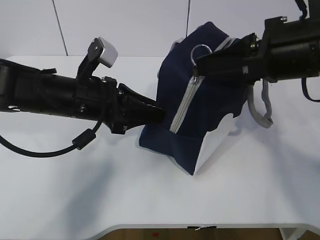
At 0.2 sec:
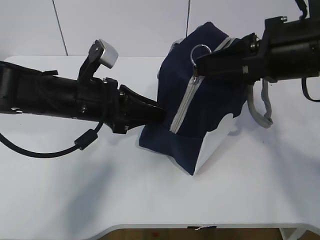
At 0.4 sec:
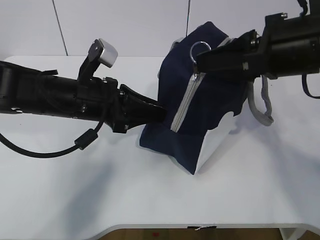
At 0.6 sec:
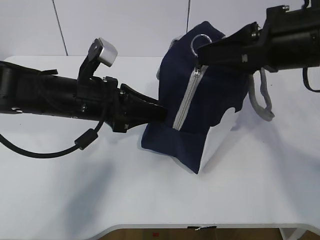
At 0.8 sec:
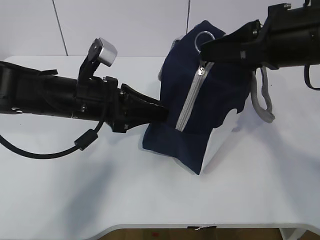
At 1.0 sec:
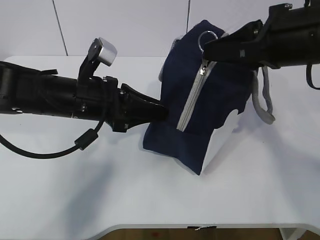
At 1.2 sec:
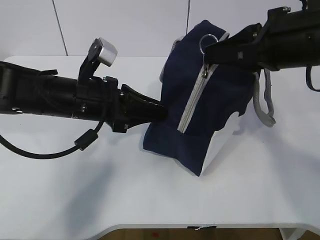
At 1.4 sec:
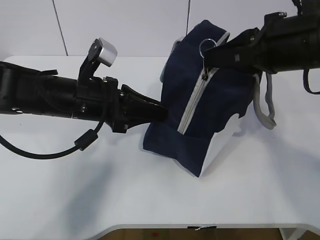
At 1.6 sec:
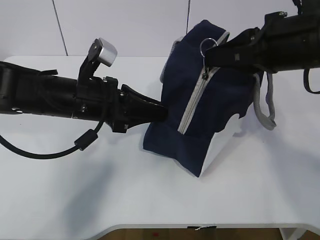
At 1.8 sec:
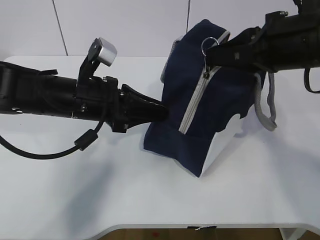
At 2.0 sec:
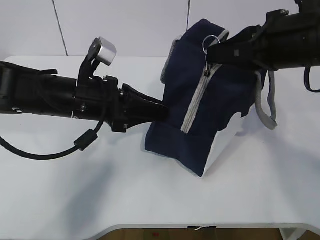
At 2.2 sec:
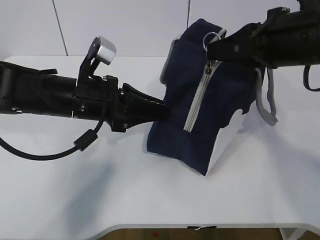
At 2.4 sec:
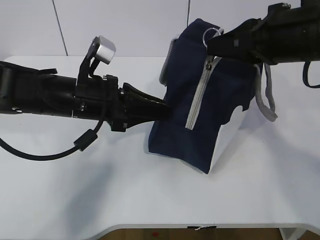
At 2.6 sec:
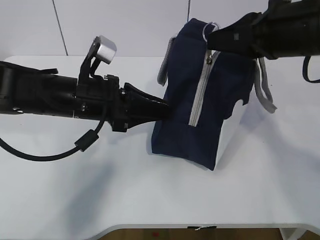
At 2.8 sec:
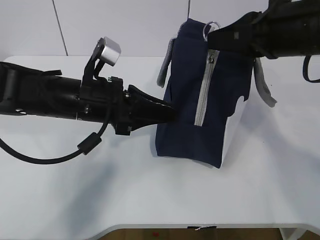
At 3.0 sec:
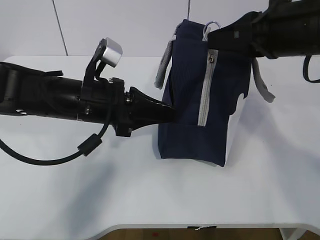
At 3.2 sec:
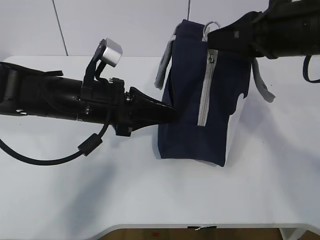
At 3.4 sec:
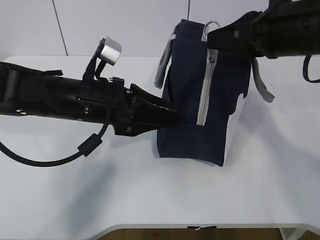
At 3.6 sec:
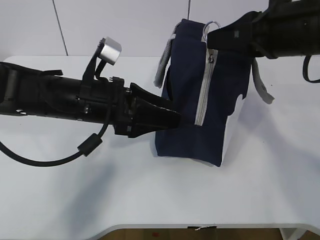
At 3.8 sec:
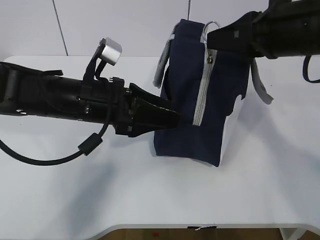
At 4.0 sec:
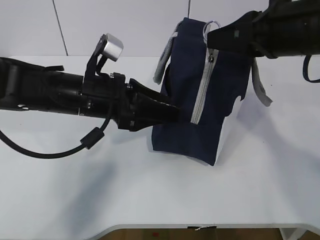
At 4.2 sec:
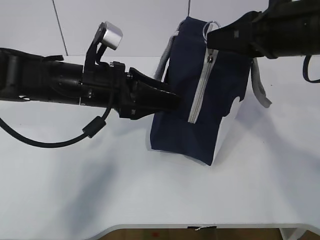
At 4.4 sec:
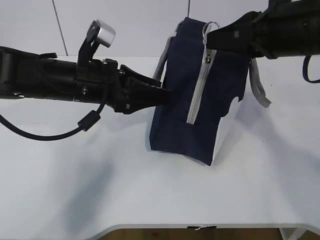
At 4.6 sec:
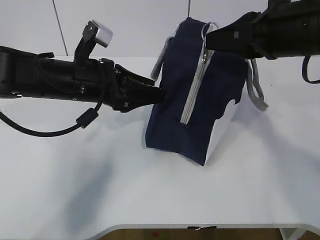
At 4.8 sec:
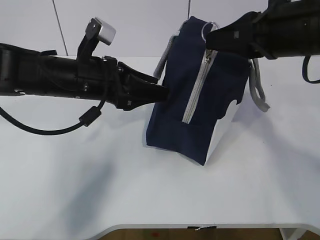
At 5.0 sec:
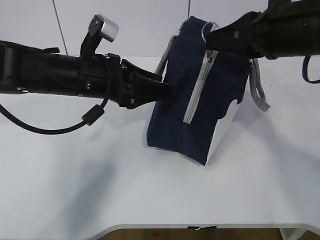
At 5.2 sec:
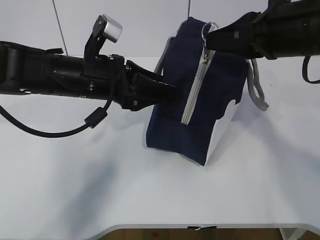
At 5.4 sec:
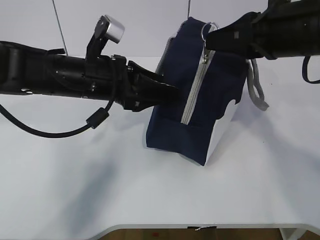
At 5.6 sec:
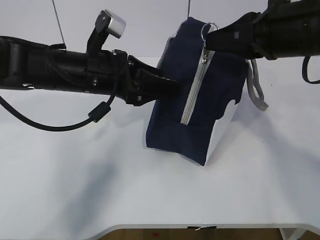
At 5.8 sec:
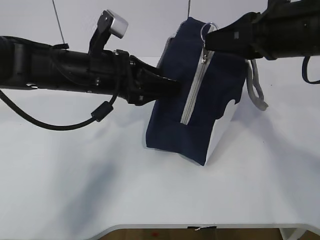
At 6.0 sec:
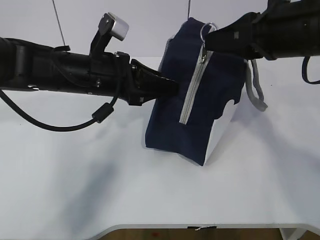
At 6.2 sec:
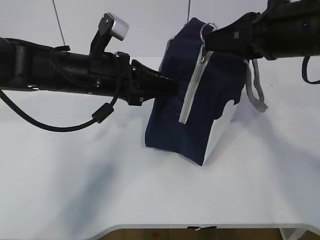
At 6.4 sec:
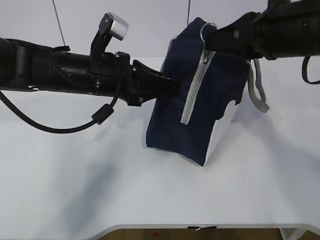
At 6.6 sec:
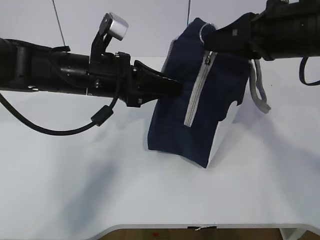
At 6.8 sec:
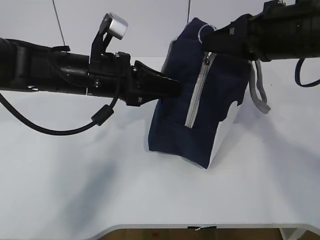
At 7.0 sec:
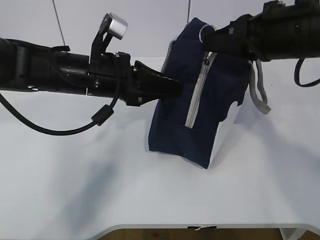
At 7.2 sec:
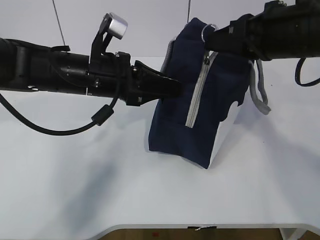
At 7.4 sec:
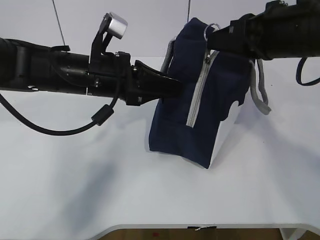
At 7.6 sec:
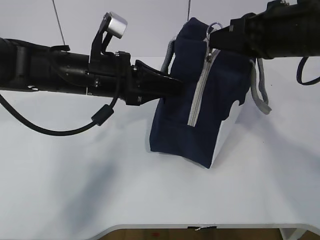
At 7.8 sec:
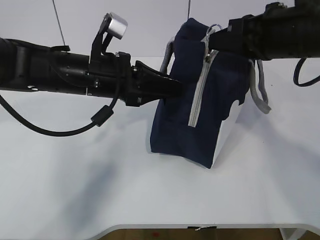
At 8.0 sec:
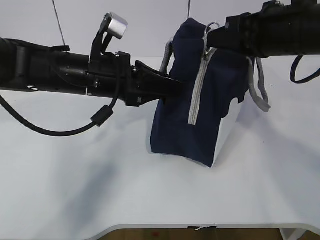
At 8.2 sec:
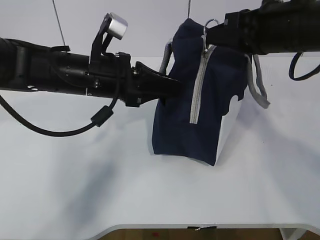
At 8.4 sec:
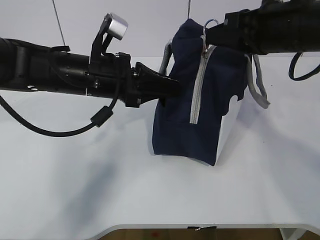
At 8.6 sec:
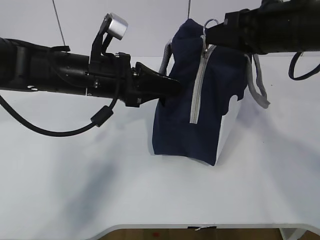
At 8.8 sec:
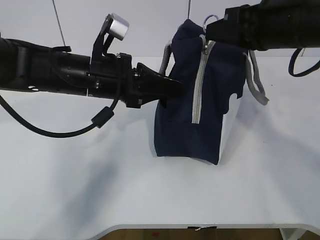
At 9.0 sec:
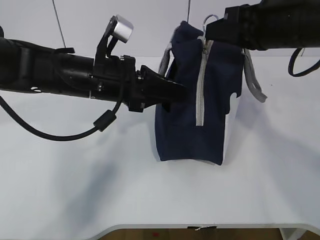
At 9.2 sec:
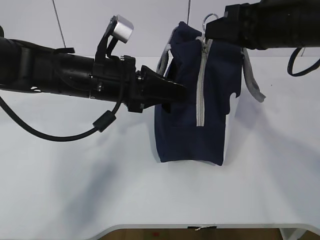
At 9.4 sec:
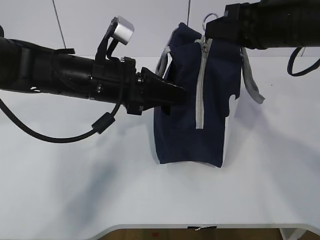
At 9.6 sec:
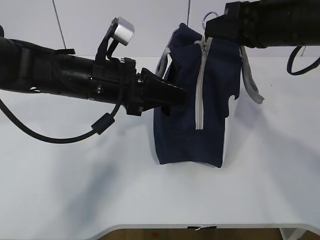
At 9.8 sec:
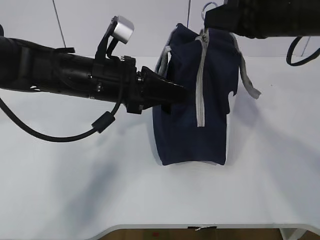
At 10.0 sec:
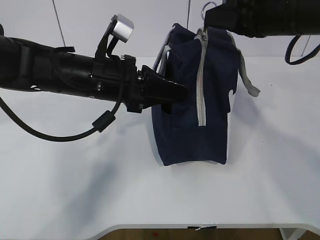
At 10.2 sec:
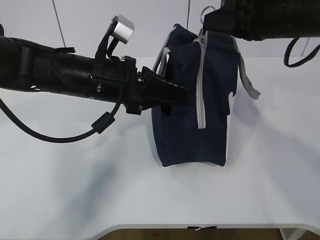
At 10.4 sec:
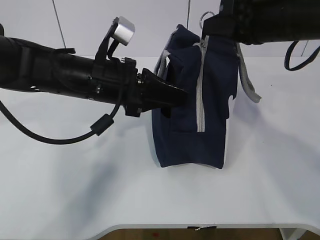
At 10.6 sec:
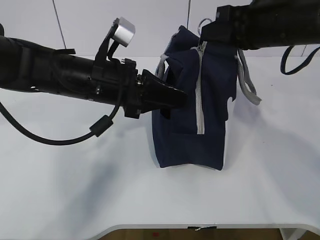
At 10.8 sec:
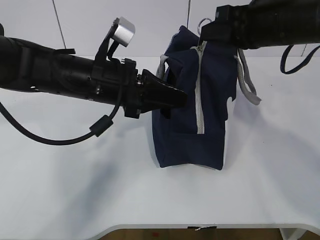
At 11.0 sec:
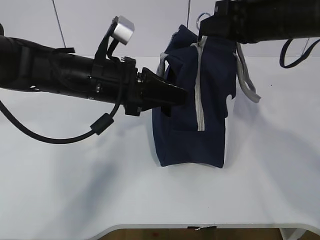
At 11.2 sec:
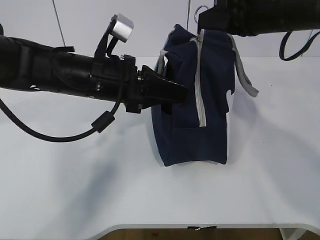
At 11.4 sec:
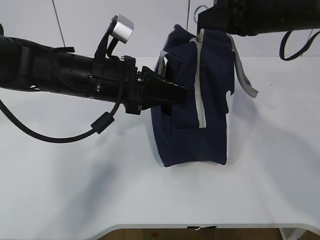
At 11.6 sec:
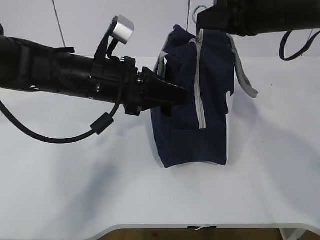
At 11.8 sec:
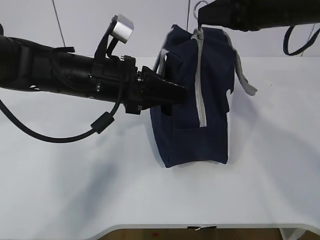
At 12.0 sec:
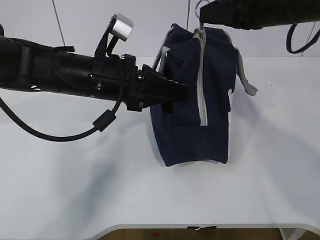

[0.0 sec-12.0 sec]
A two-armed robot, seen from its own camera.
Step, 0.0 sec to 9.2 sec: Grab the lunch bag with your left hand.
0.0 sec to 3.0 sec: The grippers stay close to where they were, moving slightly.
3.0 sec to 4.4 sec: The left gripper opens its fingers.
4.4 sec to 7.6 sec: There are only small adjustments of the grippers.
7.6 sec to 9.0 sec: Neither gripper changes place.
9.0 sec to 12.0 sec: There are only small adjustments of the grippers.

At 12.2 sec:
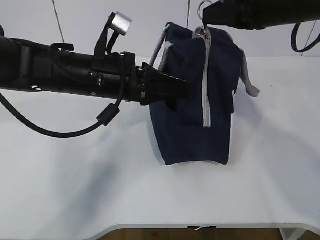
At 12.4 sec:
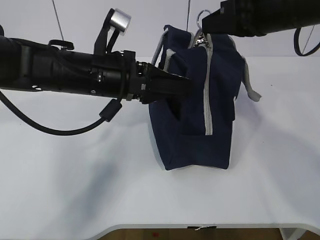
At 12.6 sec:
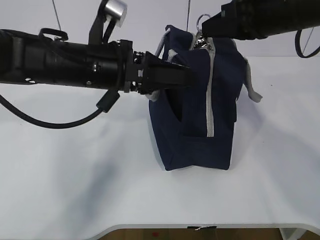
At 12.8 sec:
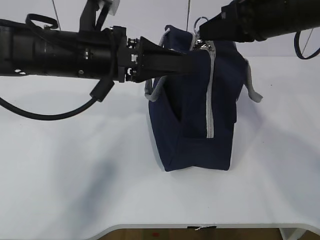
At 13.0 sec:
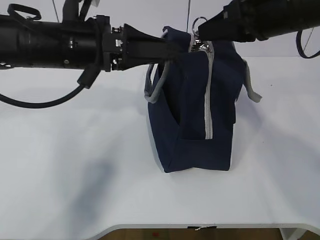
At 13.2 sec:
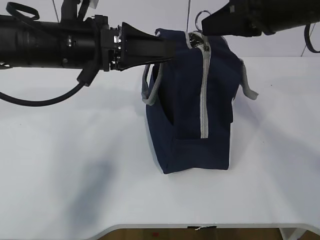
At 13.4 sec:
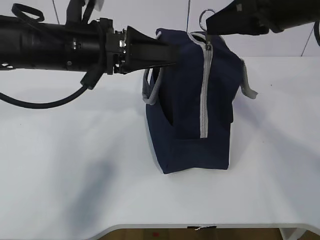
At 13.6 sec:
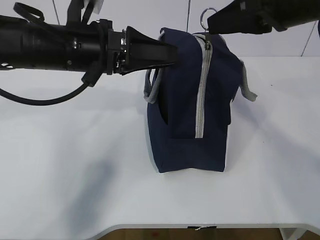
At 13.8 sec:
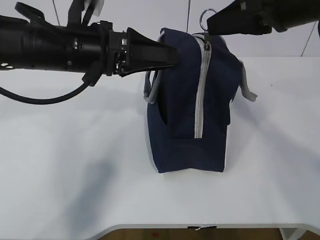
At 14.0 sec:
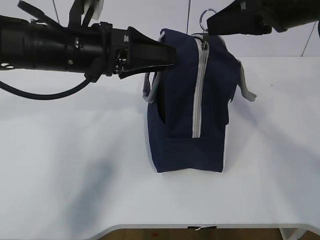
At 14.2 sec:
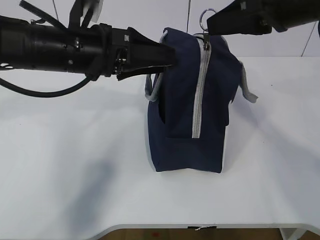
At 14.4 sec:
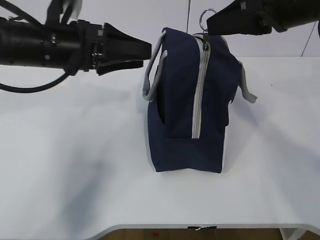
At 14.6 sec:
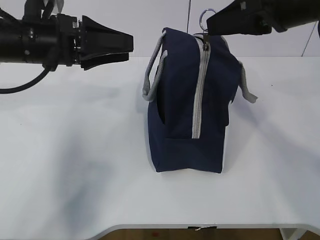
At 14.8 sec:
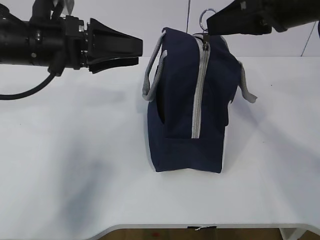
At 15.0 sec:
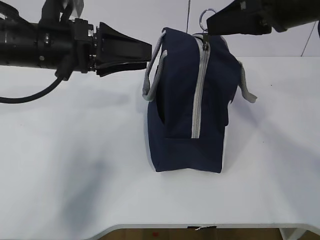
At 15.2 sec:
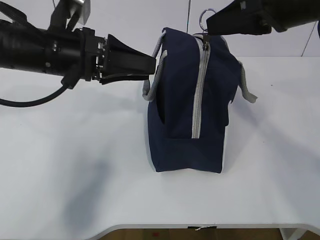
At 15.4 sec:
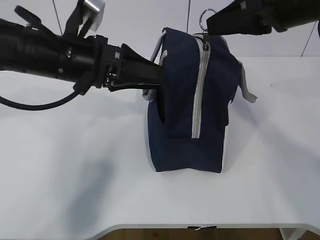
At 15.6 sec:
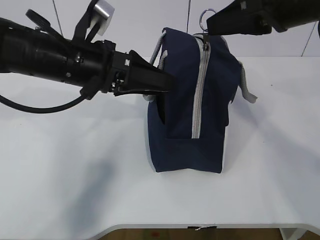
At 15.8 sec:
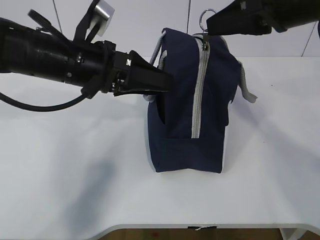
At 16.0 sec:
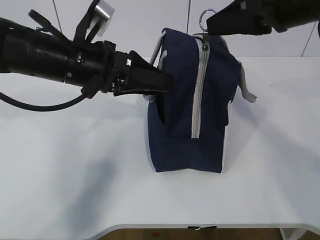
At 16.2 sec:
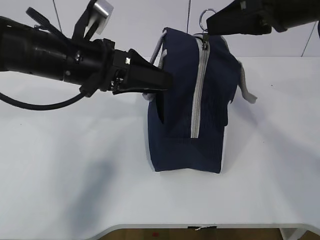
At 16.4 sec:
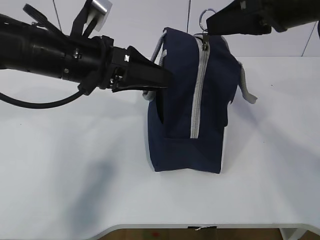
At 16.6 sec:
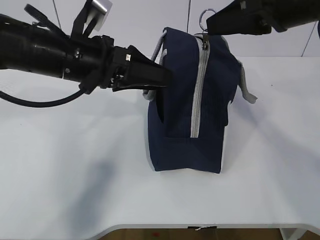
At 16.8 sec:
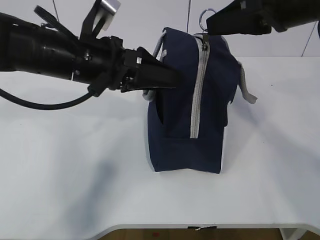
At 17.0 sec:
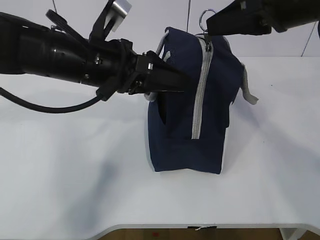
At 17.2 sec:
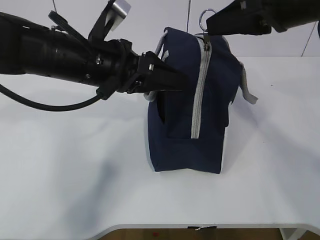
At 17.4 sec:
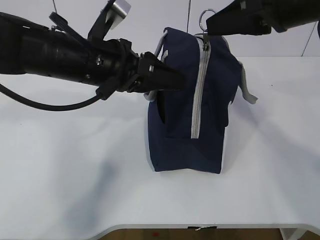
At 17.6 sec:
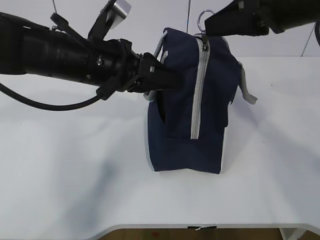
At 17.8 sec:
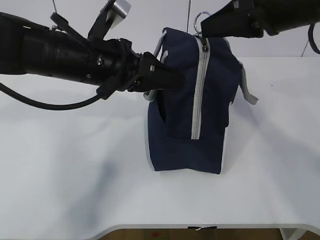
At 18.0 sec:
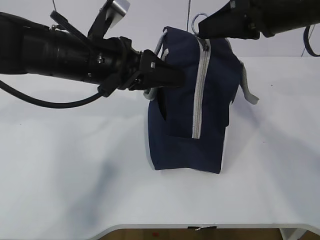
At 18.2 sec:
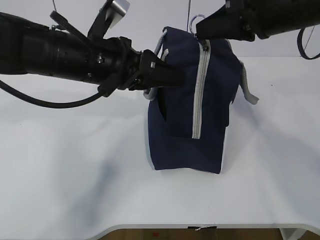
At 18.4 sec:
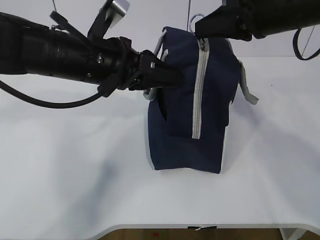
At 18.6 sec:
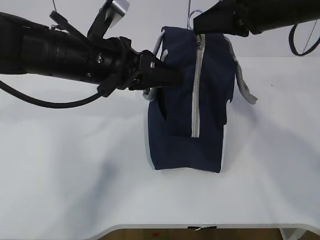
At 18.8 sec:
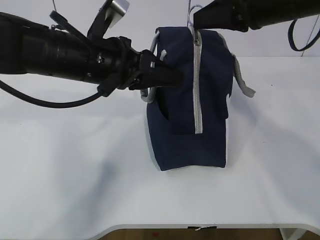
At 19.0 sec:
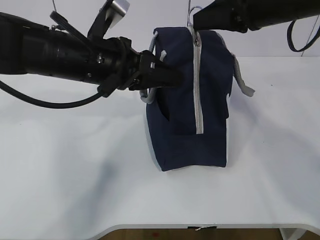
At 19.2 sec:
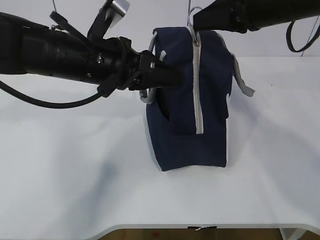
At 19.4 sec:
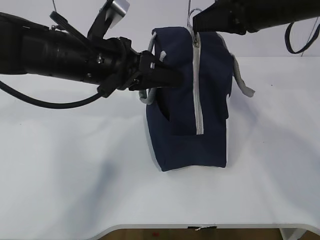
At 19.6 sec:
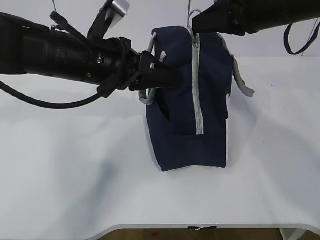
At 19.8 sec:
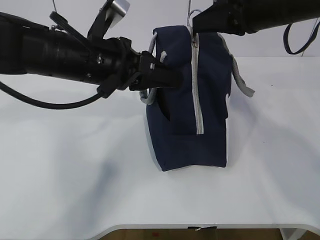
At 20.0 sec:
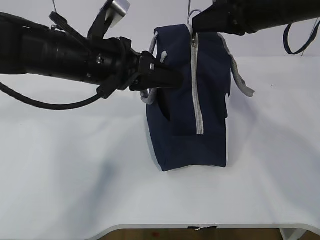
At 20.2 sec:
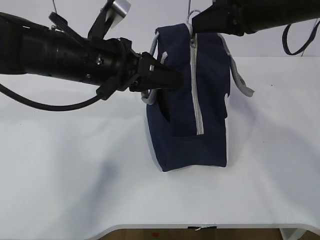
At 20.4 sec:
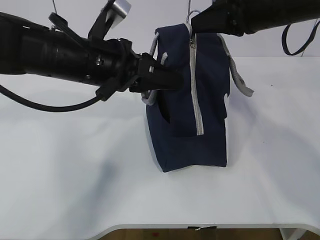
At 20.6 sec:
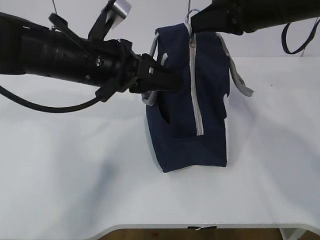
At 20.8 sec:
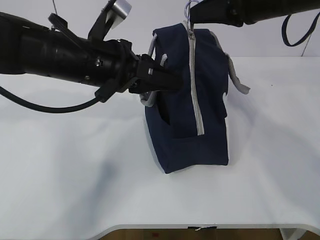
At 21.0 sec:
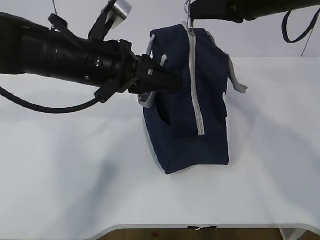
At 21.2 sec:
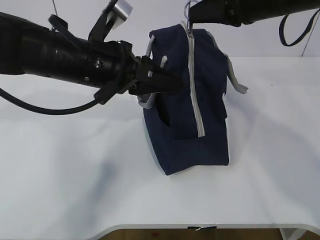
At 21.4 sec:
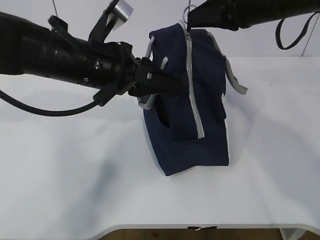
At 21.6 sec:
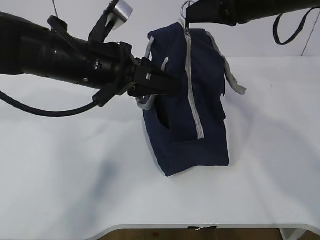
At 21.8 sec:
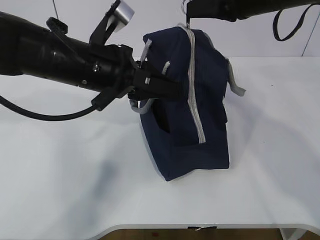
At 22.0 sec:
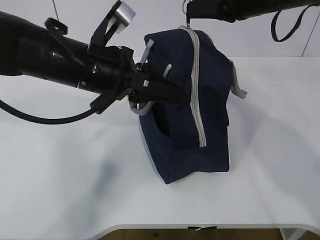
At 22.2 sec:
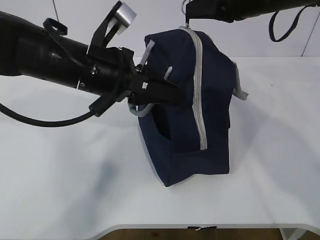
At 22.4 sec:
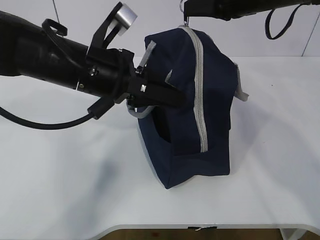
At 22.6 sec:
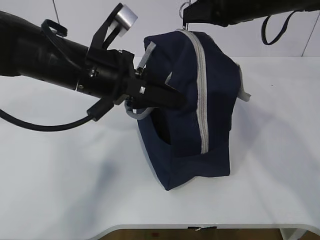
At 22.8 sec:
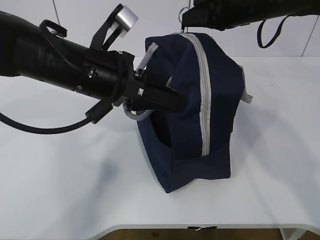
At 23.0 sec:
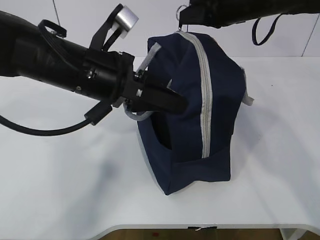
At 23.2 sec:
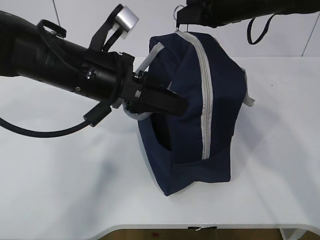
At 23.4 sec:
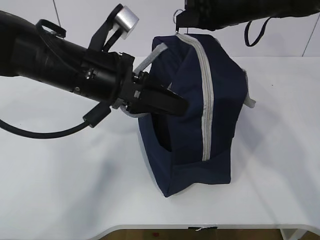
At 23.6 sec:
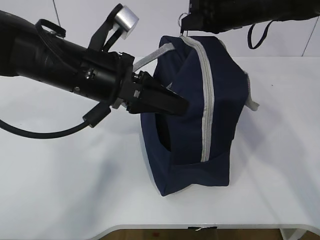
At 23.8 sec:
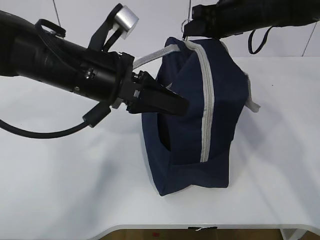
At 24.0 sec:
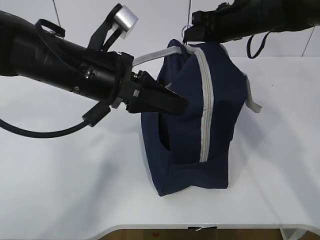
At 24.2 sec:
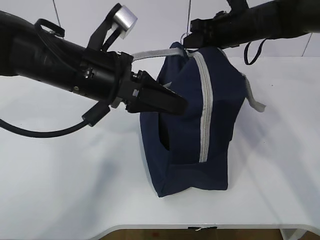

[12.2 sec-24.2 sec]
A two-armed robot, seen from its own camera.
Step, 12.2 sec to 19.2 sec: Pull the zipper with your right hand.
12.2 sec to 13.8 sec: The left gripper opens.
15.2 sec to 16.6 sec: The grippers stay close to where they were, moving slightly.
16.6 sec to 18.2 sec: The left gripper closes up.
18.2 sec to 21.2 sec: The grippers make only small movements.
21.2 sec to 22.6 sec: There are only small adjustments of the grippers.
22.6 sec to 24.2 sec: The right gripper heads forward and downward, covering approximately 10 cm.
